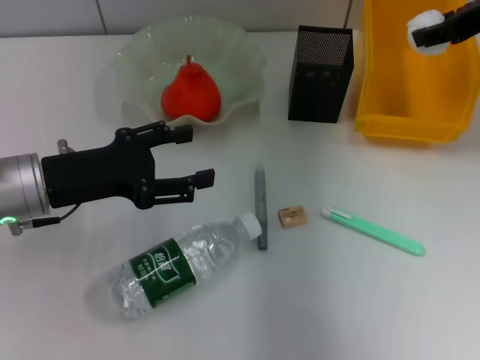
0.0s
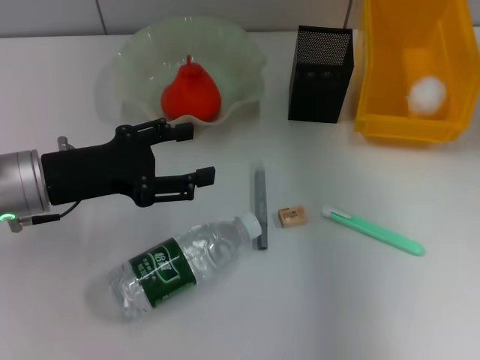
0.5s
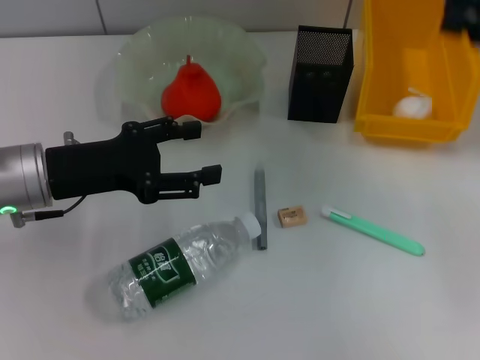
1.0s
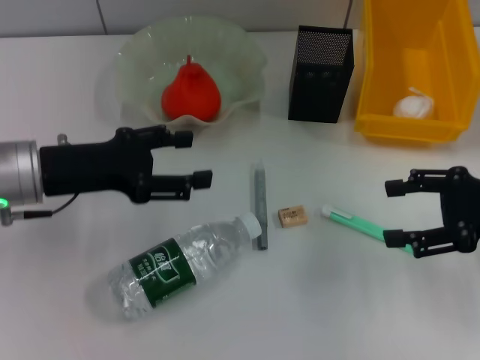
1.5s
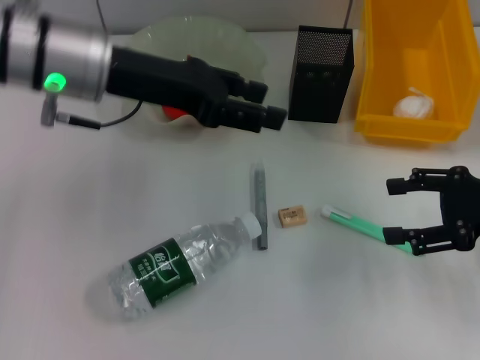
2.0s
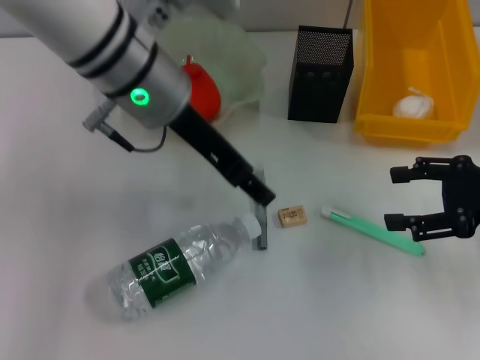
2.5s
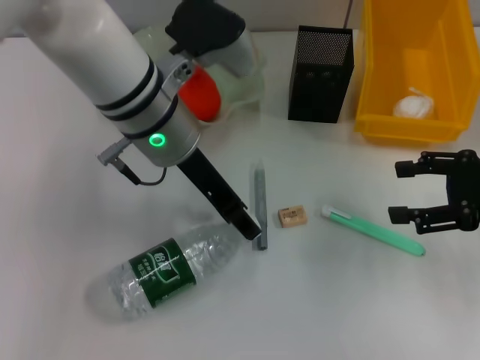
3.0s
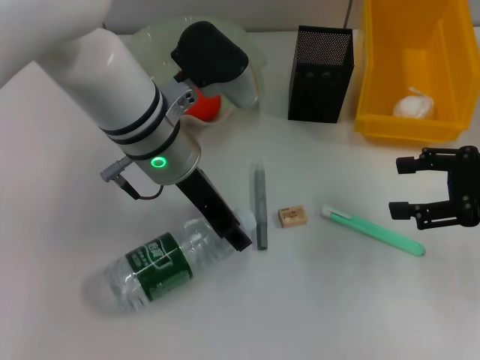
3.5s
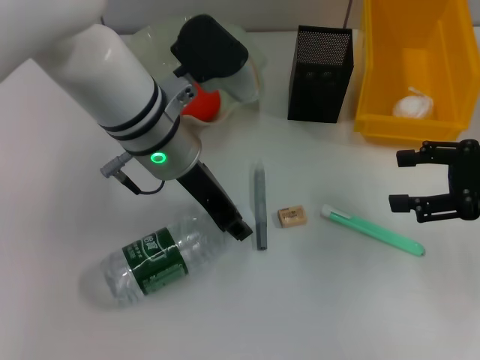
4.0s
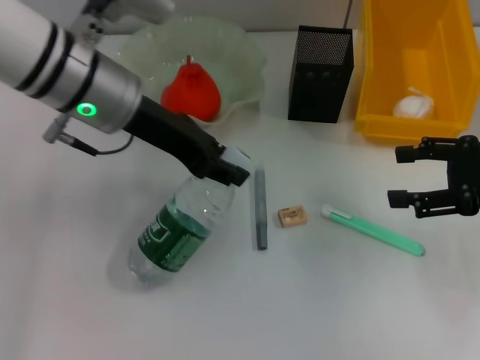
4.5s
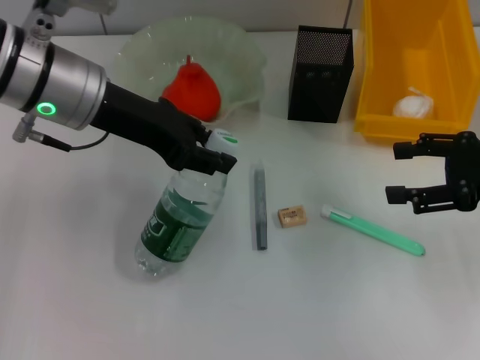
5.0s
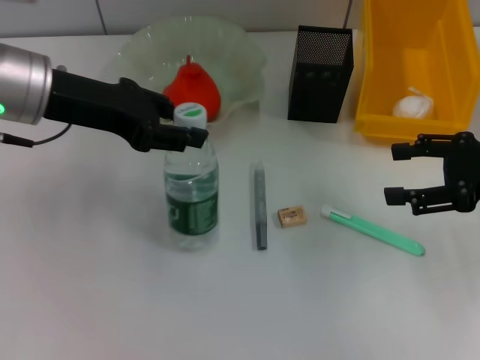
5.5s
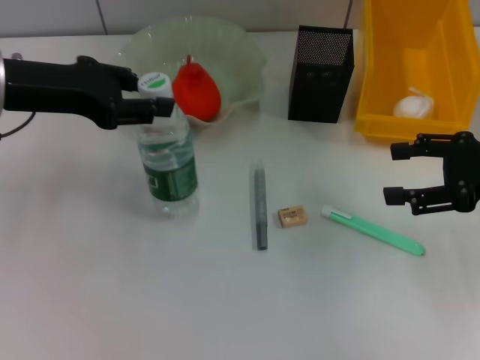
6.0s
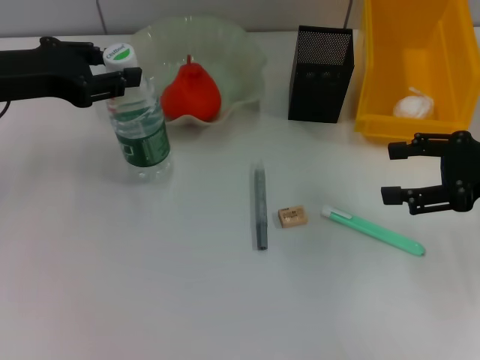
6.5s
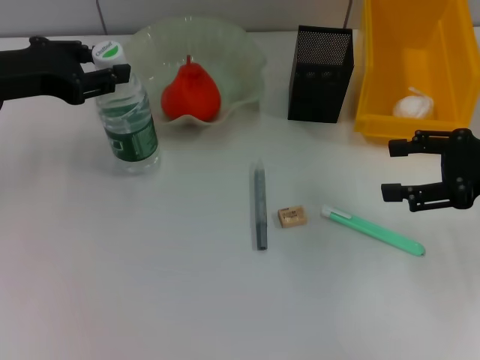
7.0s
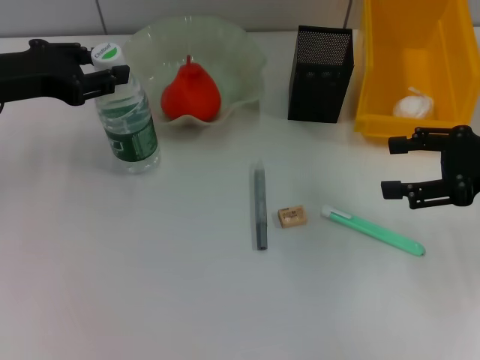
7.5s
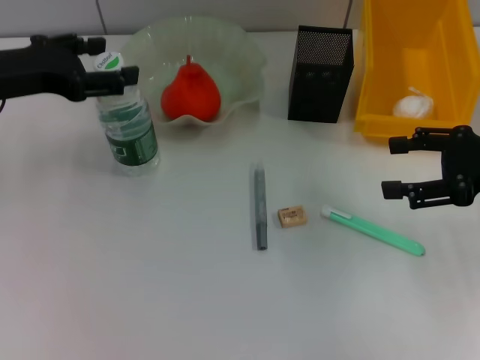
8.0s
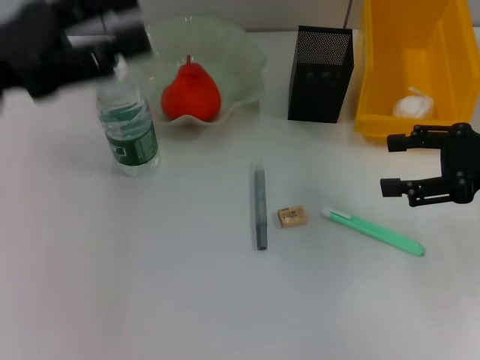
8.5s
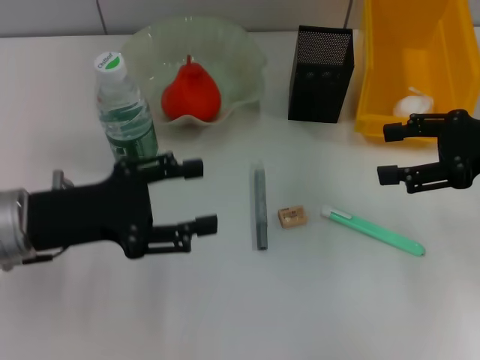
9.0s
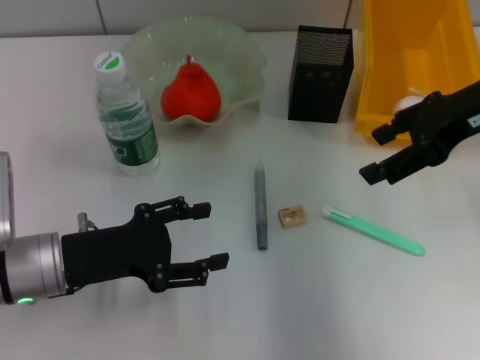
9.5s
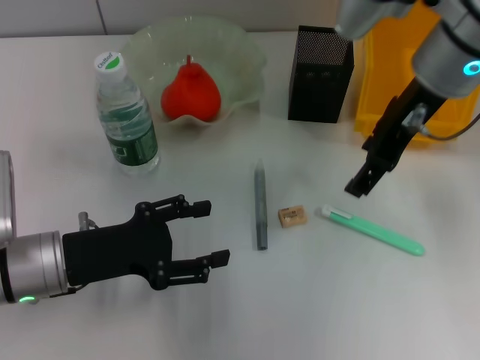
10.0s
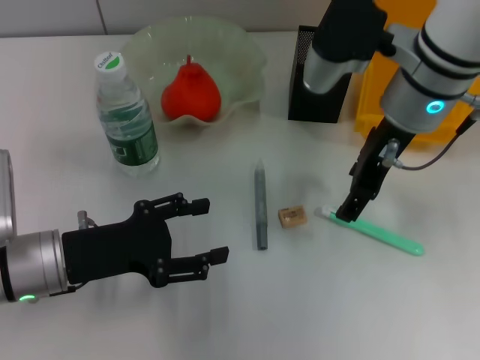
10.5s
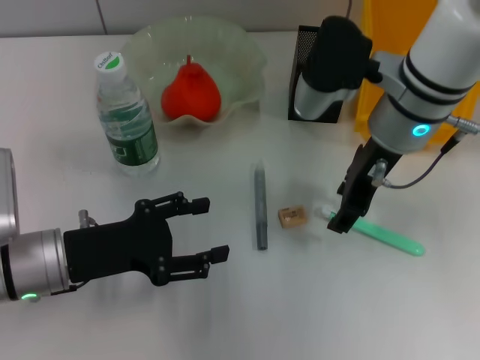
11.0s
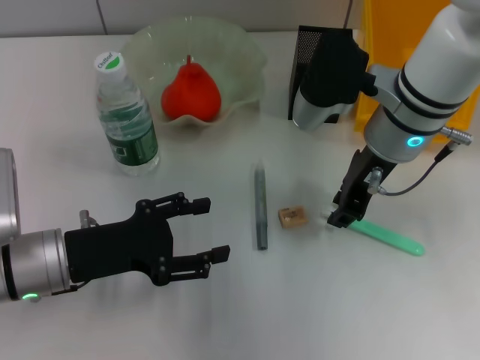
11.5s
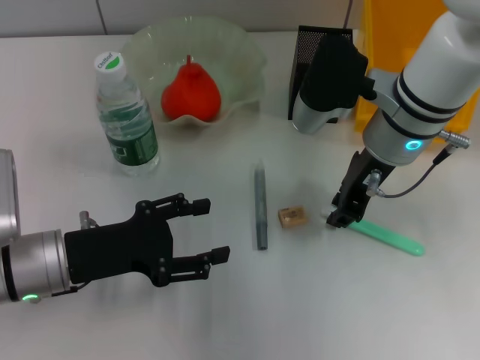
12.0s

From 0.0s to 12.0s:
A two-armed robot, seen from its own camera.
Step, from 0.5s to 3.5s: Grab the water bottle with the left hand.
Step, from 4.0s to 7.5s: Place the water bottle on the table with the left hand.
From 0.0s to 2.0s: The right gripper is displaced downward and backward by about 20 cm, and opens its fingers. The left gripper is displaced upward, to the right and forward by roughly 15 cm.
From 2.0s to 4.0s: The left gripper heads to the right and downward, covering some 10 cm, and closes up.
From 4.0s to 6.0s: The left gripper moves to the left, roughly 15 cm.
From 6.0s to 8.0s: The left gripper opens up.
From 8.0s to 10.0s: The right gripper heads to the left, upward and forward, covering some 20 cm, while the left gripper travels downward, backward and to the right by roughly 15 cm.
From 10.0s to 12.0s: The right gripper travels downward by about 10 cm, and closes its fingers.

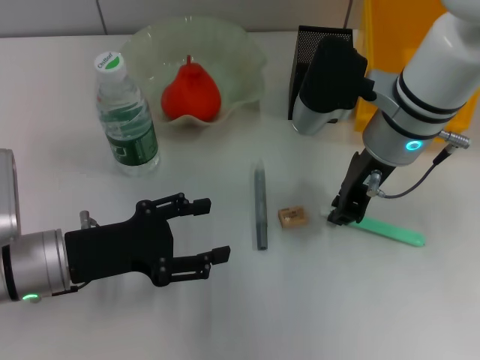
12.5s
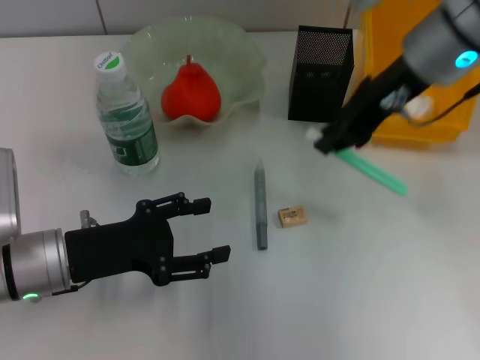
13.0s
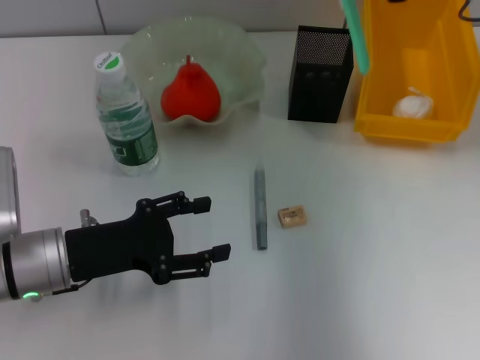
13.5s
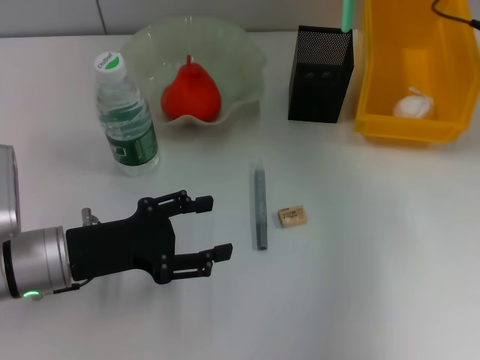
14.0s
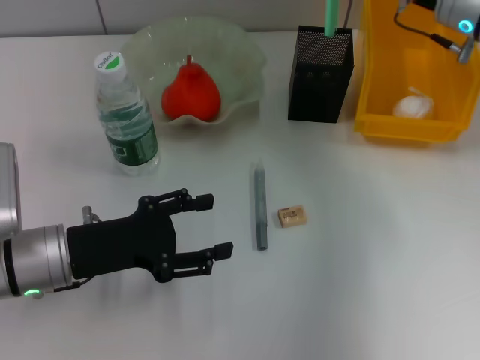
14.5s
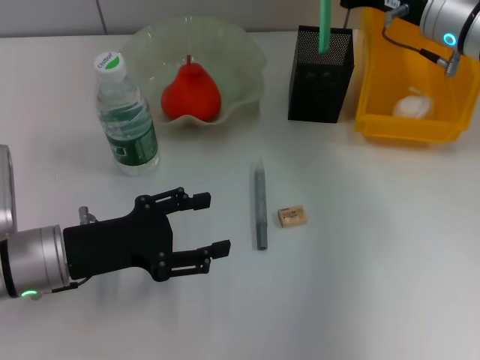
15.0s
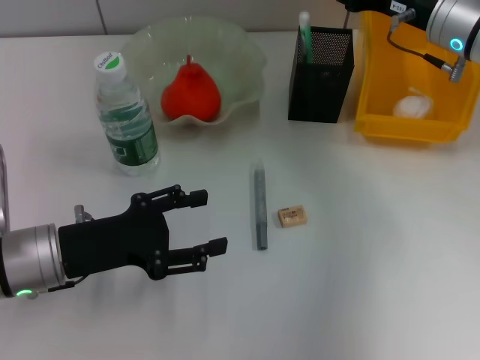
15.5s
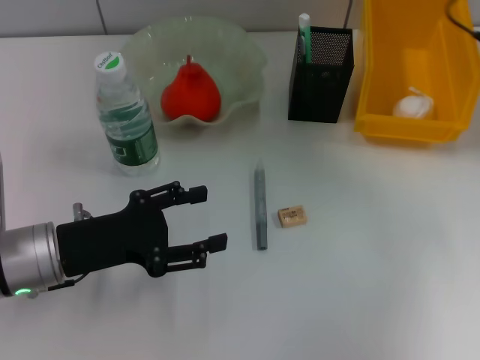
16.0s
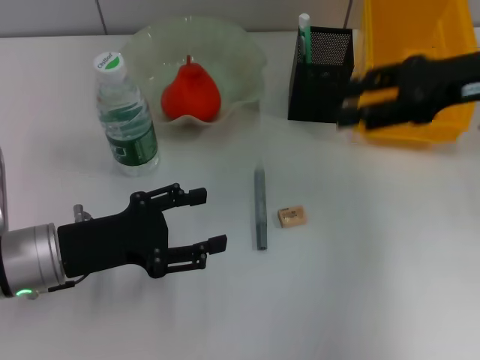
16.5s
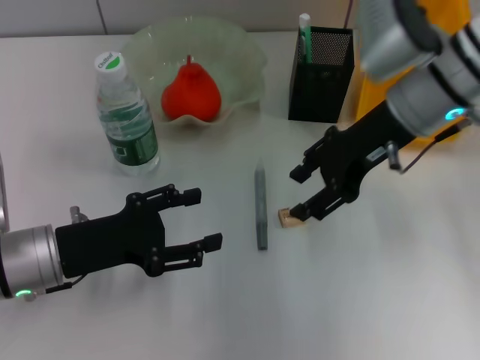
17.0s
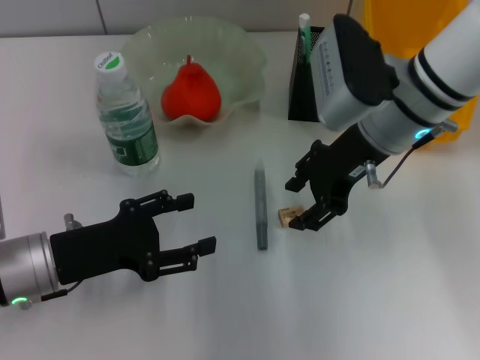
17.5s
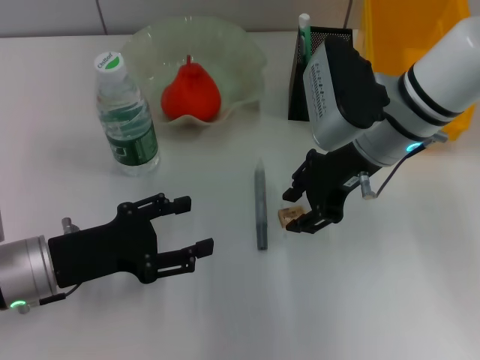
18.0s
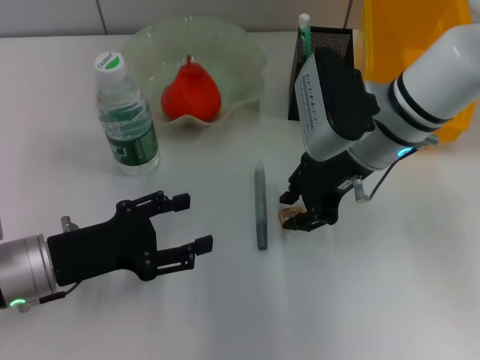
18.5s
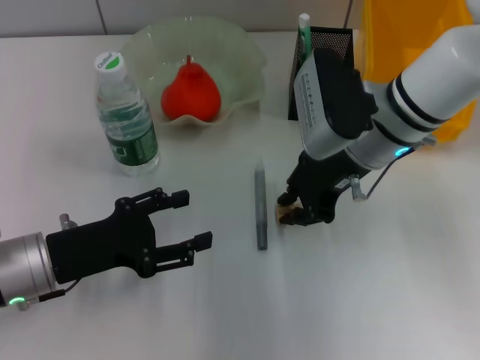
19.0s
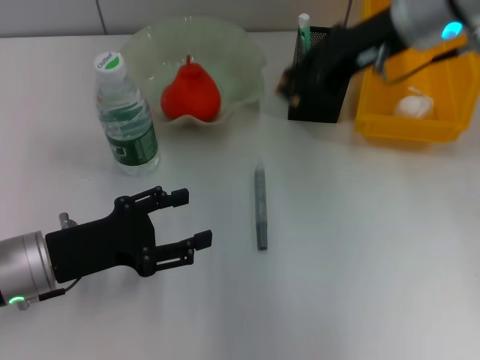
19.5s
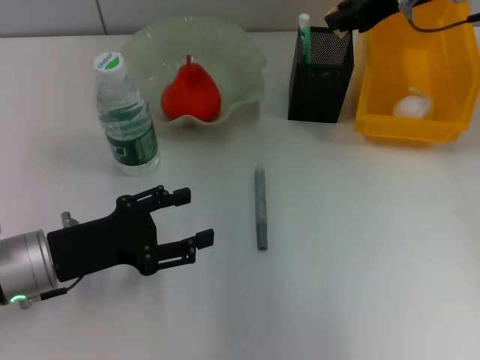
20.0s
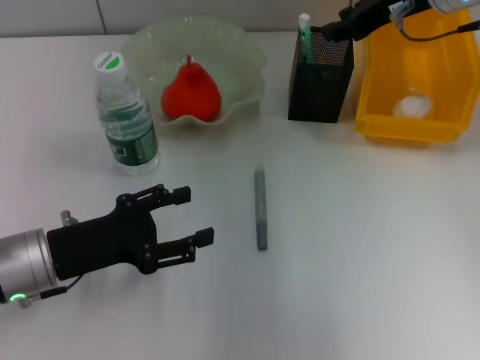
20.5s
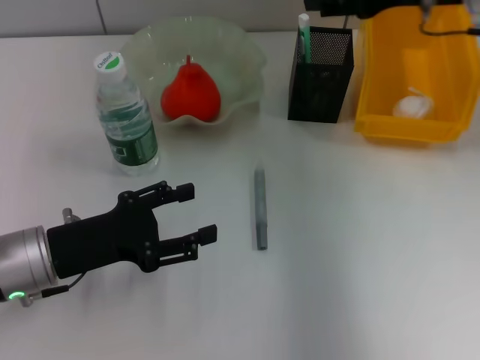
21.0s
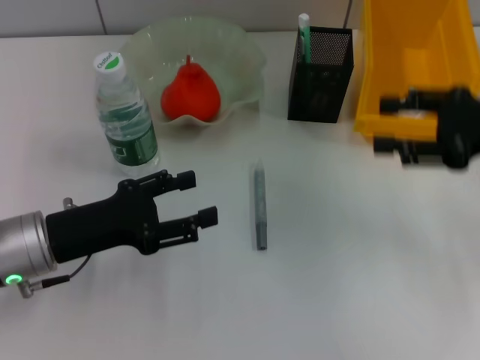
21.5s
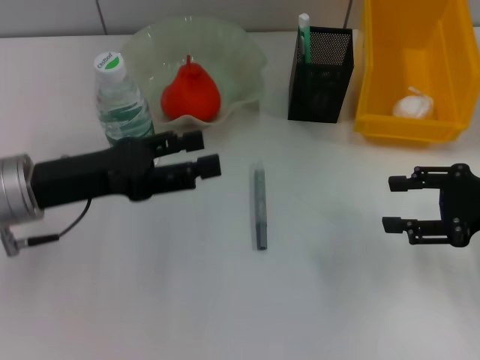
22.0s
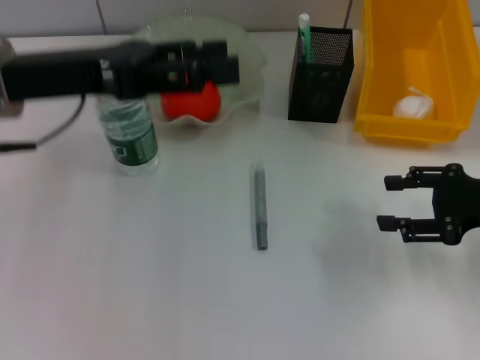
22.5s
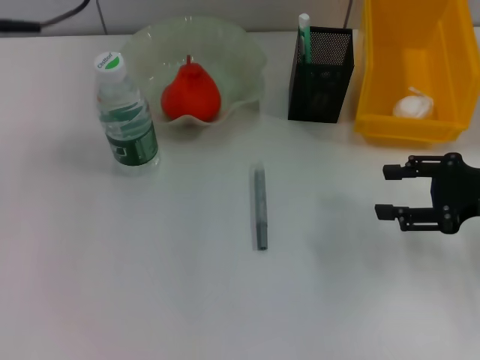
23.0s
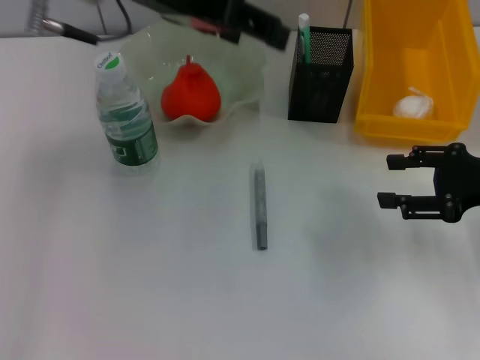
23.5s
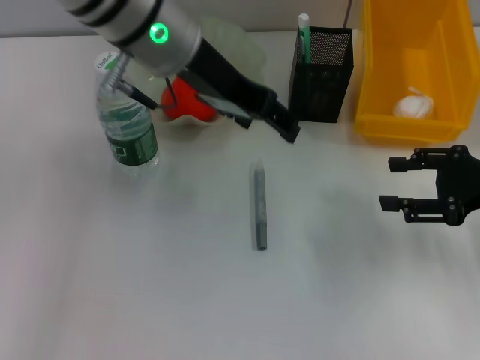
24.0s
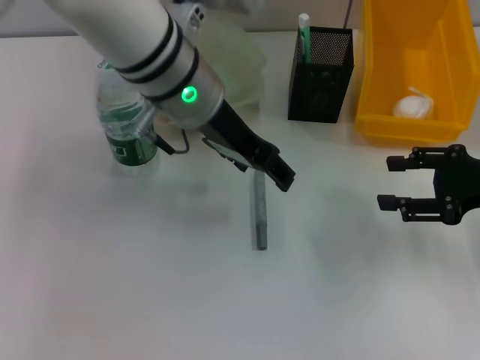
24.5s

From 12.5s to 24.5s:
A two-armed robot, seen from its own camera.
Step, from 12.5s to 15.5s: Place the blue utility knife into the pen holder with the right hand.
Step, from 16.0s to 18.5s: Grab the eraser with the right hand.
Step, from 19.0s to 20.0s: Put the eraser into the pen holder with the right hand.
From 12.5s to 14.5s: The right gripper is displaced to the right and forward by roughly 10 cm.
From 14.5s to 16.5s: The right gripper is displaced backward by roughly 5 cm, and opens its fingers.
From 16.5s to 18.5s: The right gripper heads to the left and downward, covering approximately 15 cm.
From 18.5s to 20.5s: The right gripper shifts some 15 cm upward, forward and to the right.
From 20.5s to 22.5s: The left gripper travels upward and forward by about 20 cm; the right gripper shifts approximately 25 cm backward, downward and to the right, and opens up.
From 22.5s to 24.5s: The left gripper travels to the right by about 15 cm.

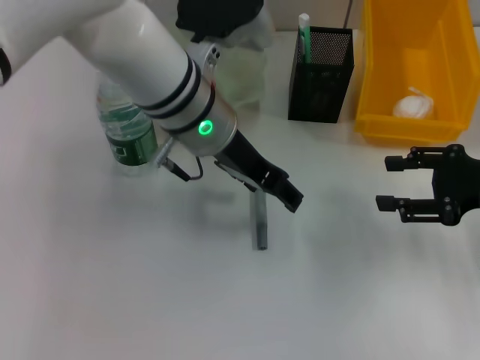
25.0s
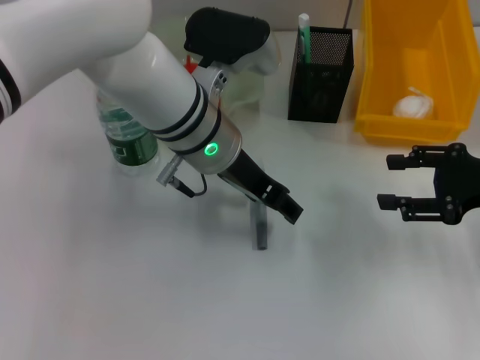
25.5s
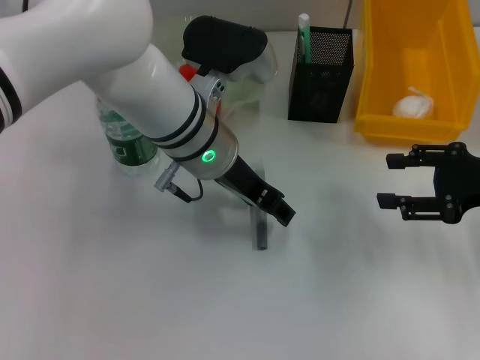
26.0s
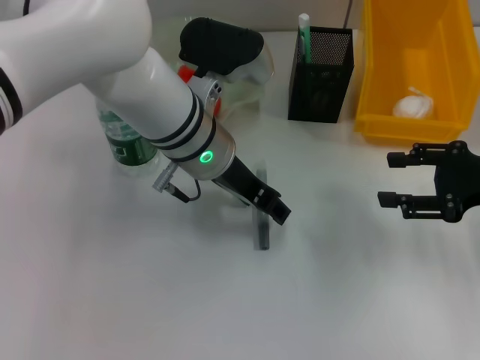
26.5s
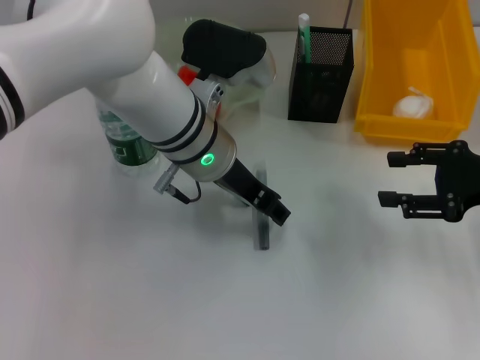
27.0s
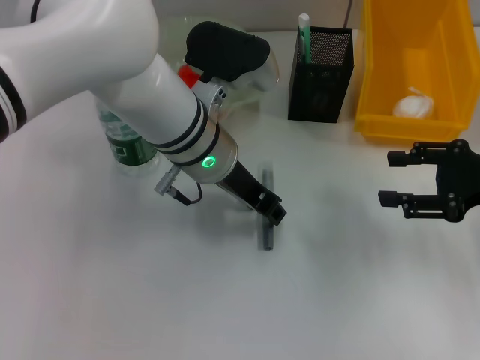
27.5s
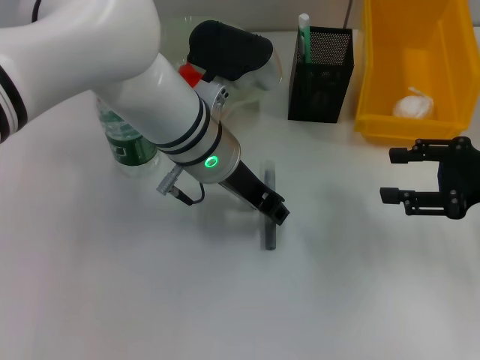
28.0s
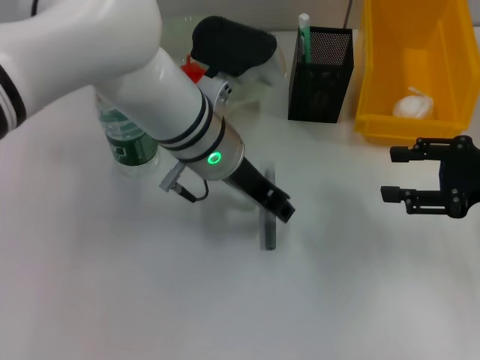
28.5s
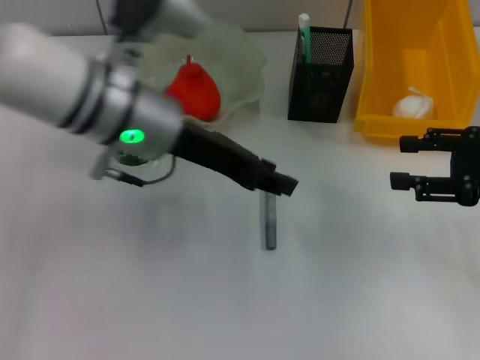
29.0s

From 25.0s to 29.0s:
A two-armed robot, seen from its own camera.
From 25.0s to 27.0s: The grippers make only small movements.
From 27.0s to 29.0s: The left gripper moves to the left, some 5 cm.
